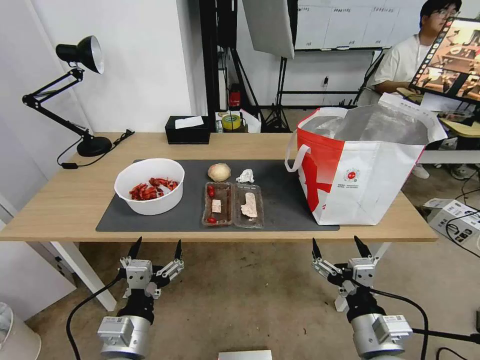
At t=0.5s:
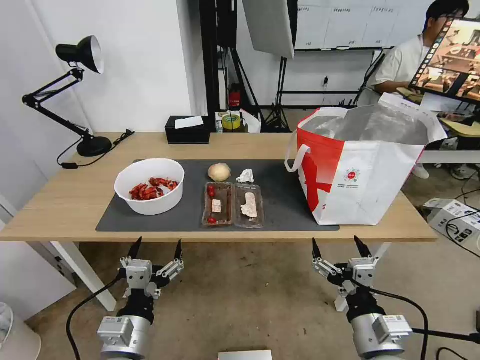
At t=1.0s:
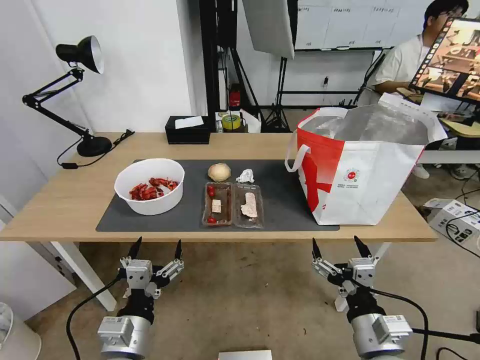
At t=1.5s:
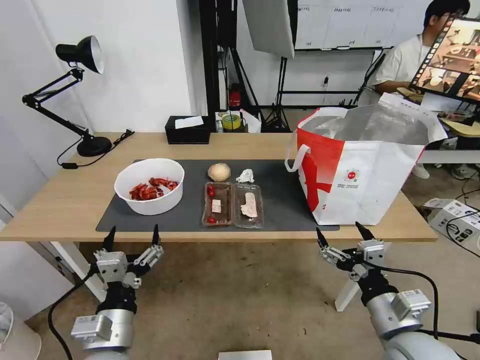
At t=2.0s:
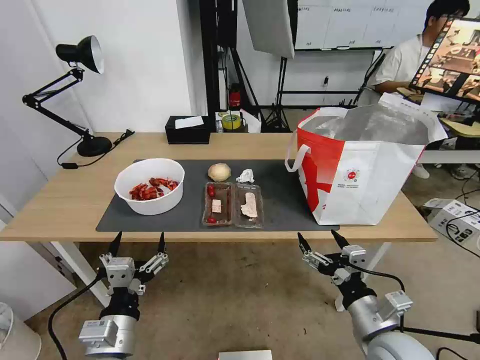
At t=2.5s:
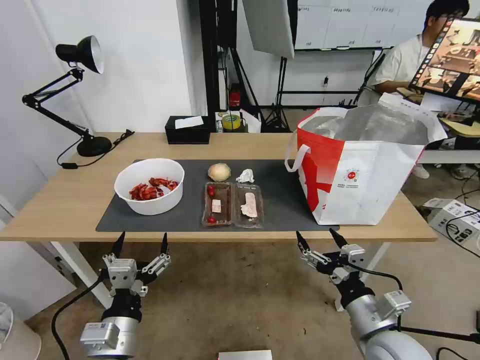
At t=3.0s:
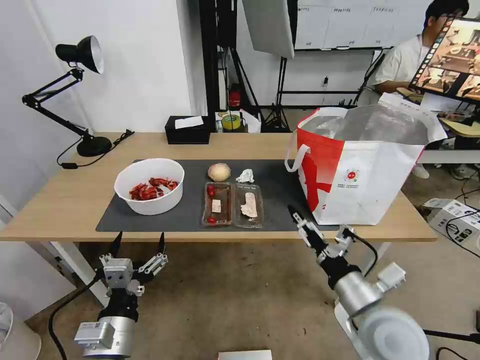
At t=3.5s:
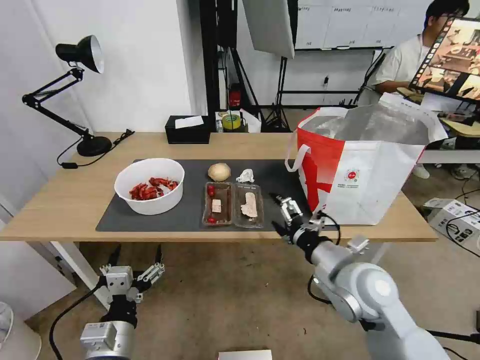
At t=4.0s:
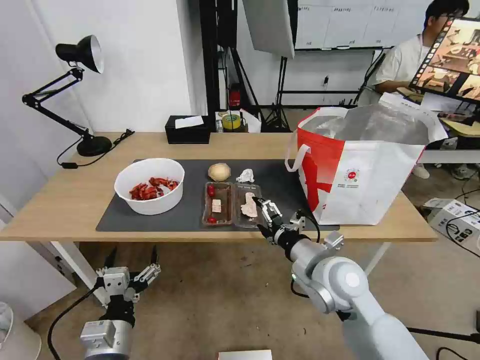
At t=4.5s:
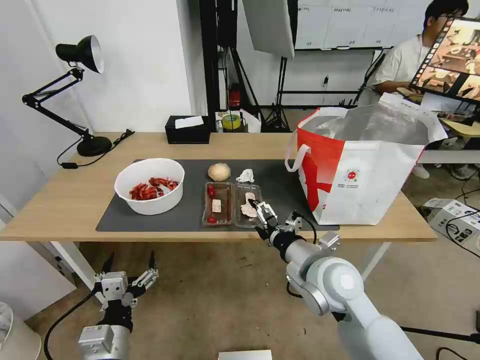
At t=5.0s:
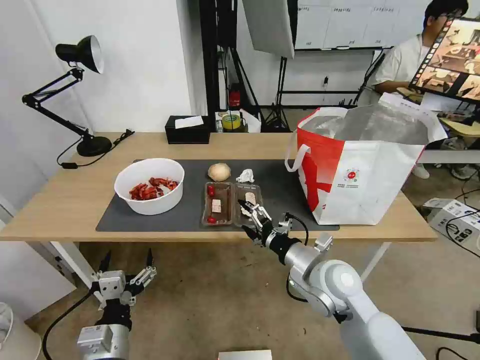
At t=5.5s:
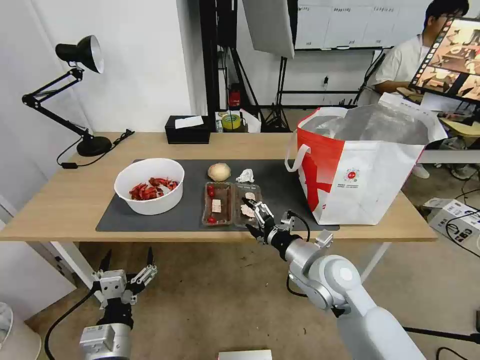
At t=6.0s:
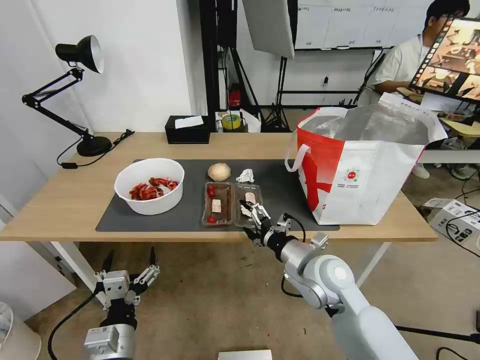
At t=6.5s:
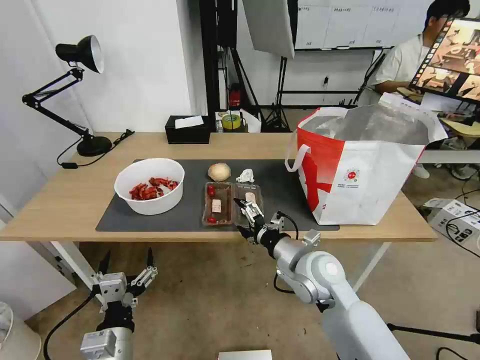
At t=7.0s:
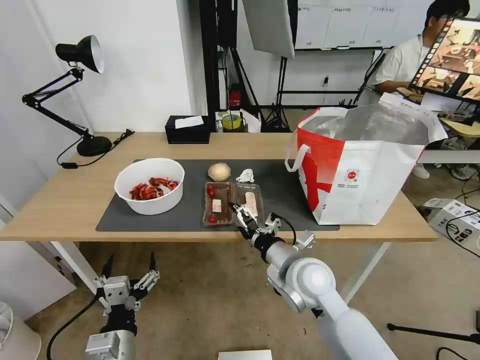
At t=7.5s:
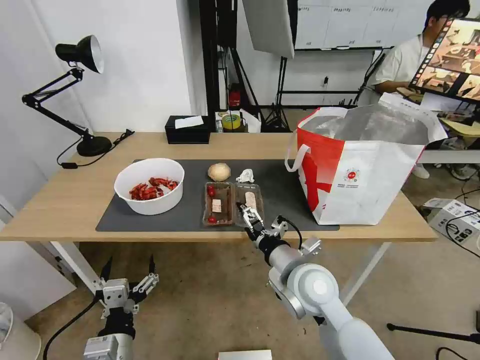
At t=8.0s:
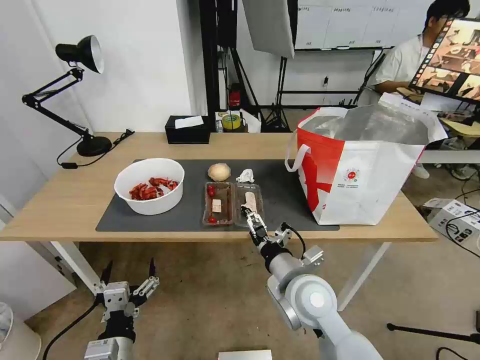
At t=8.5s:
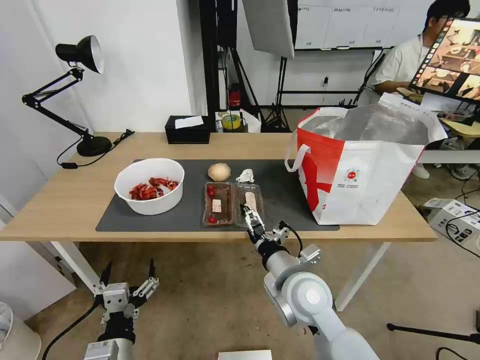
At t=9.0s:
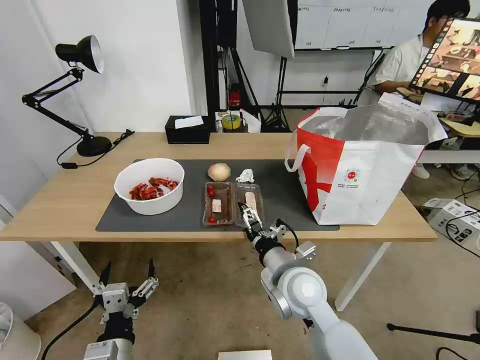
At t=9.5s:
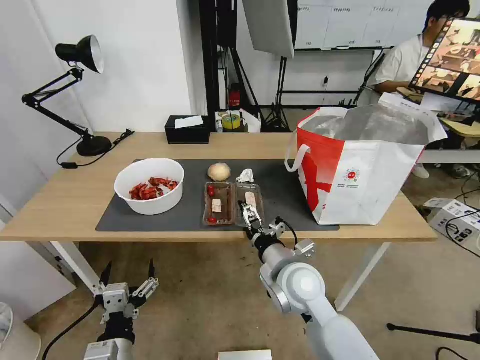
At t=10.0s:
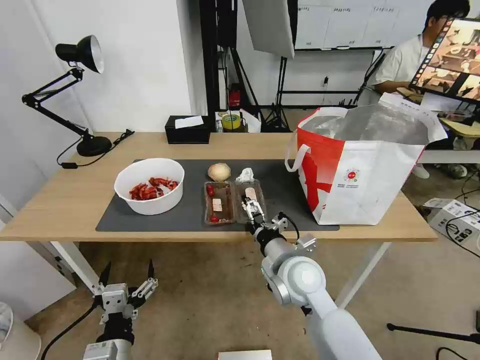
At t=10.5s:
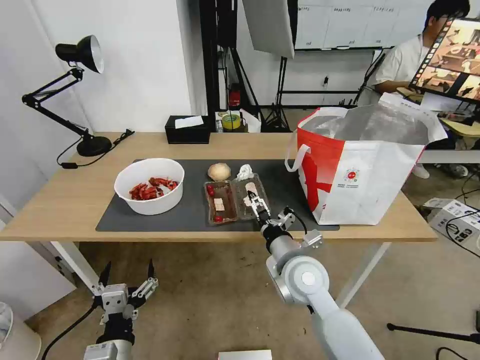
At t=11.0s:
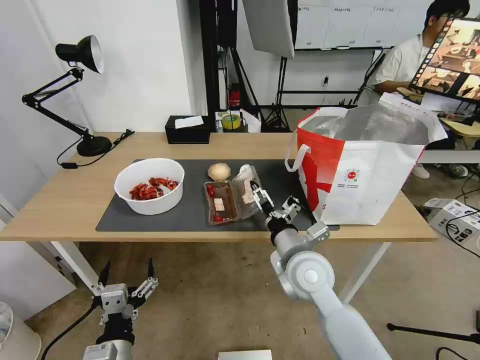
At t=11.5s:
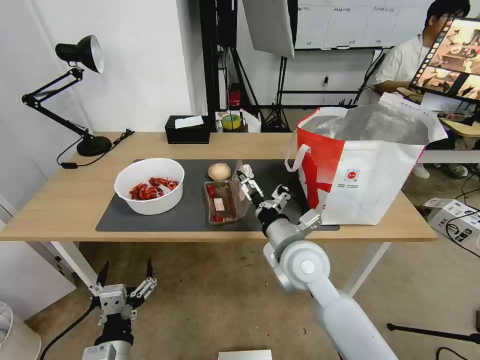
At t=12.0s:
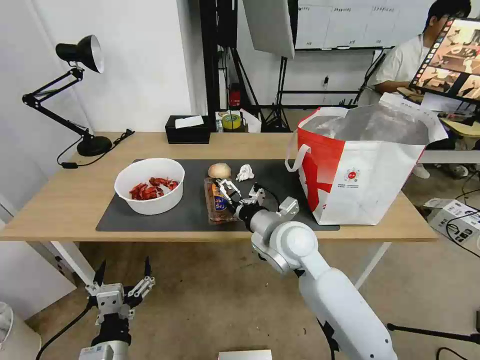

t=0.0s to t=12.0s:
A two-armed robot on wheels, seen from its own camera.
Task of the whole recording: Pick up the trash from the table and place it into the takeout bag.
t=2.0s to t=4.0s: The right gripper is displaced forward, to the left and upward by approximately 15 cm.
t=4.0s to t=6.0s: The grippers stay close to where they were, moving slightly.
t=6.0s to t=8.0s: The right gripper ends up some 5 cm from where it was.
t=8.0s to t=10.0s: The grippers move only a little.
t=10.0s to t=12.0s: The right gripper is displaced upward and forward by some 5 cm.

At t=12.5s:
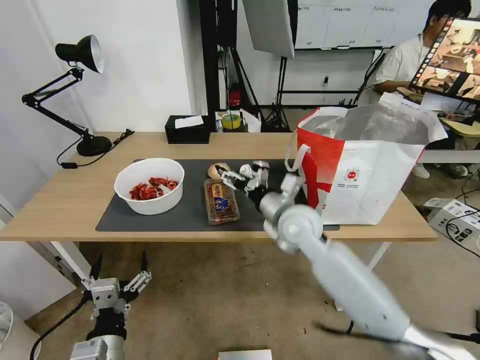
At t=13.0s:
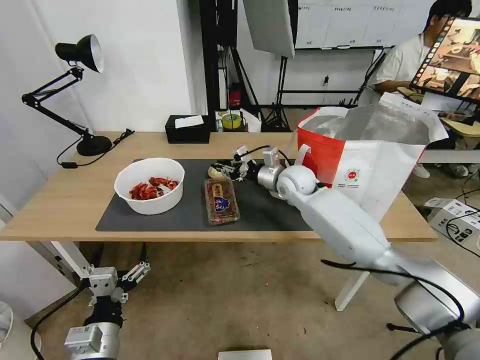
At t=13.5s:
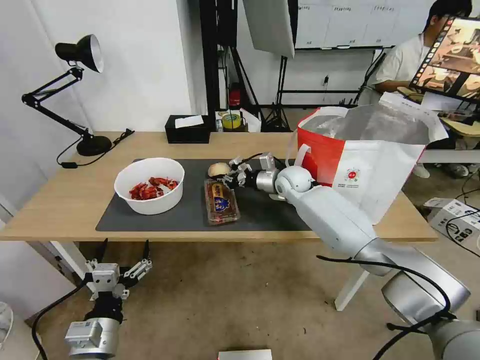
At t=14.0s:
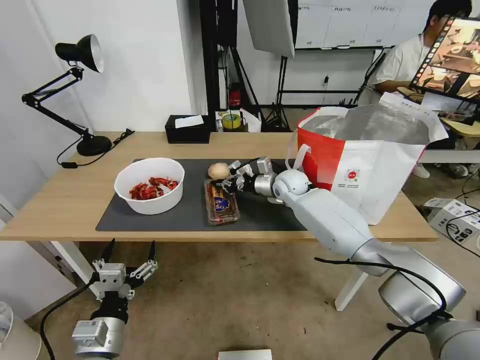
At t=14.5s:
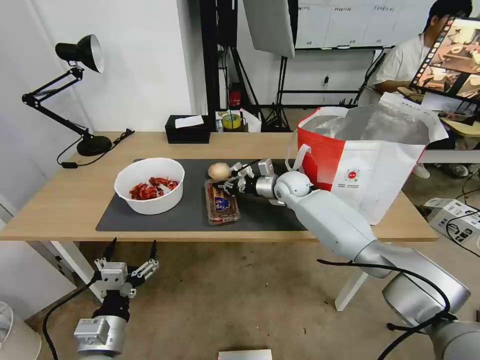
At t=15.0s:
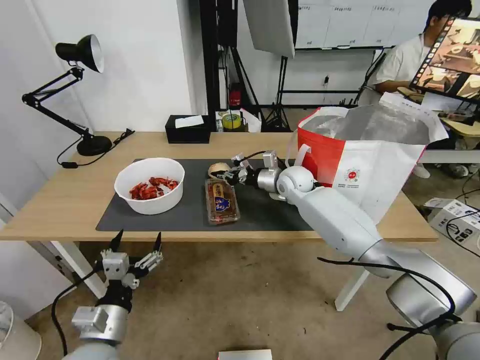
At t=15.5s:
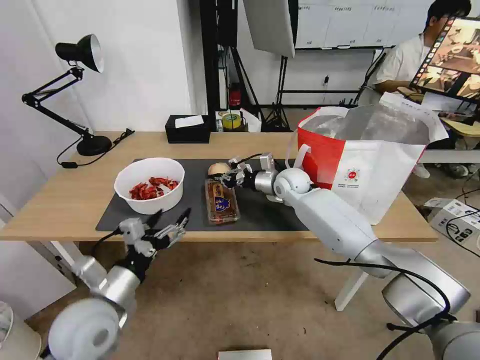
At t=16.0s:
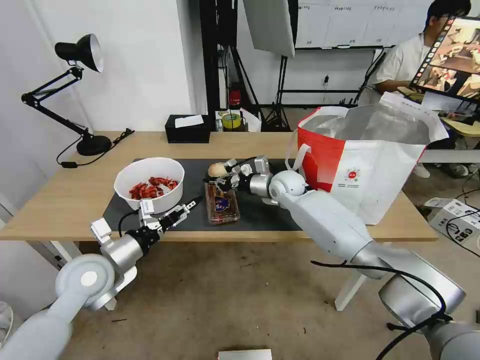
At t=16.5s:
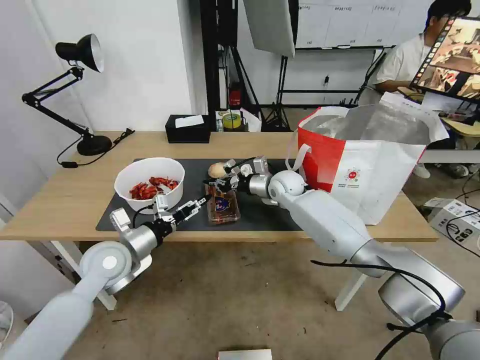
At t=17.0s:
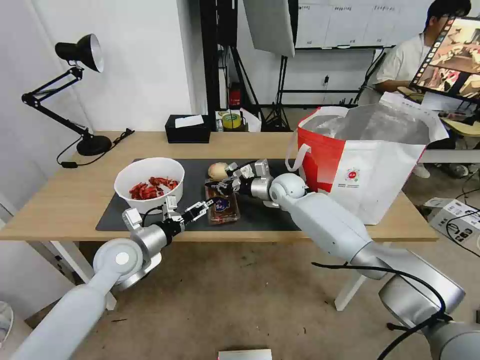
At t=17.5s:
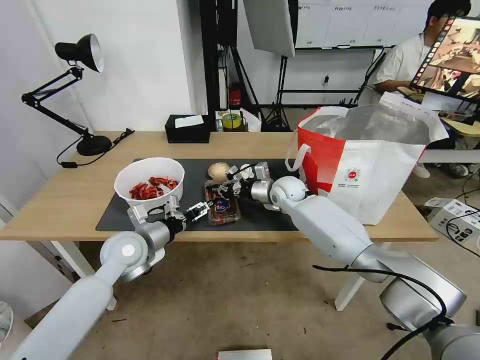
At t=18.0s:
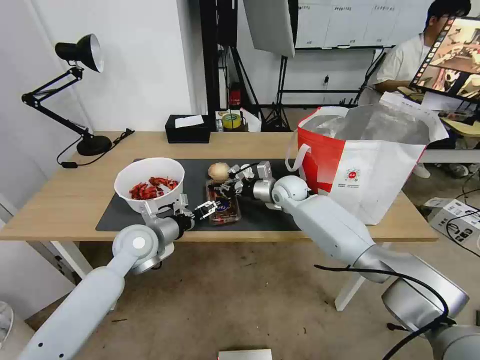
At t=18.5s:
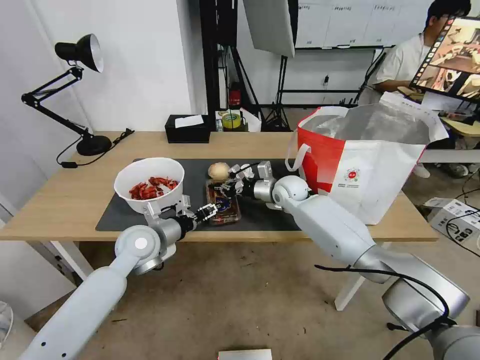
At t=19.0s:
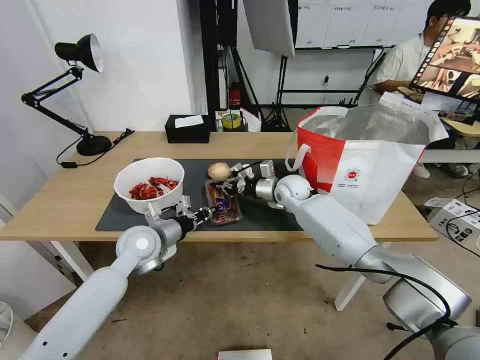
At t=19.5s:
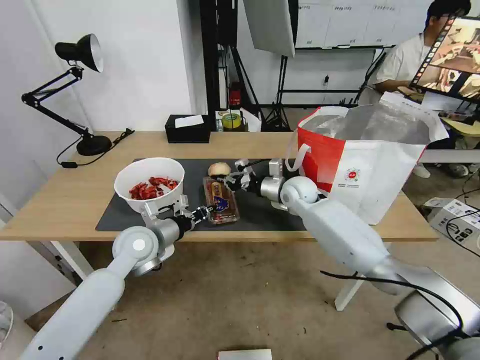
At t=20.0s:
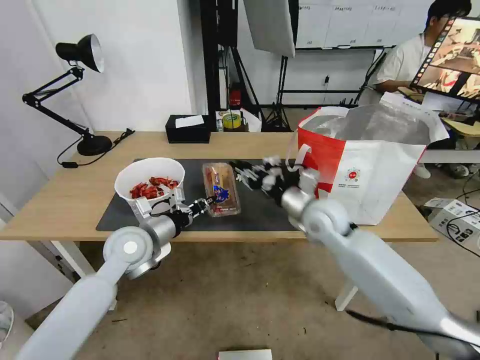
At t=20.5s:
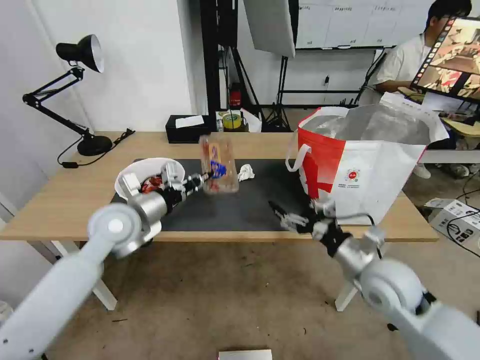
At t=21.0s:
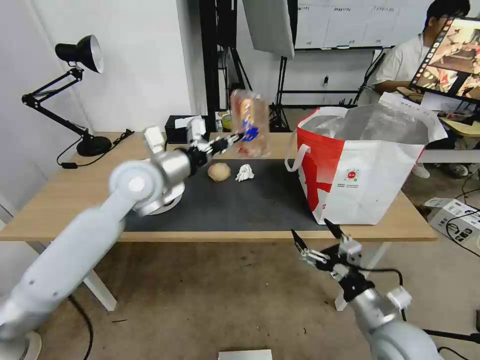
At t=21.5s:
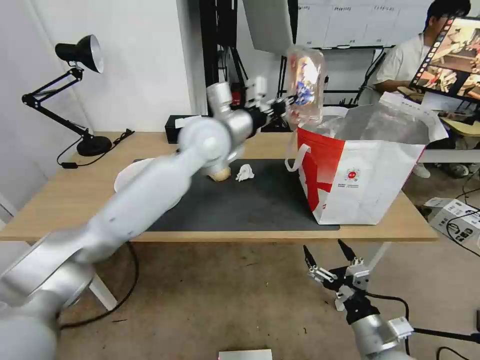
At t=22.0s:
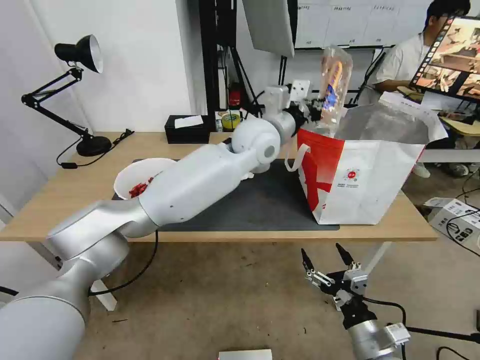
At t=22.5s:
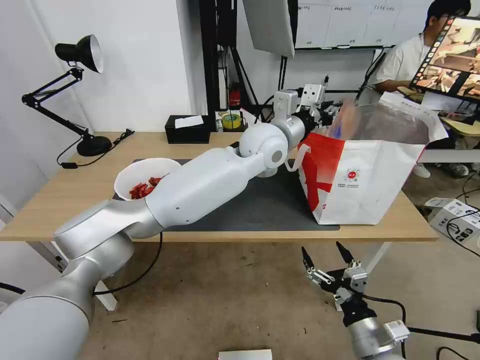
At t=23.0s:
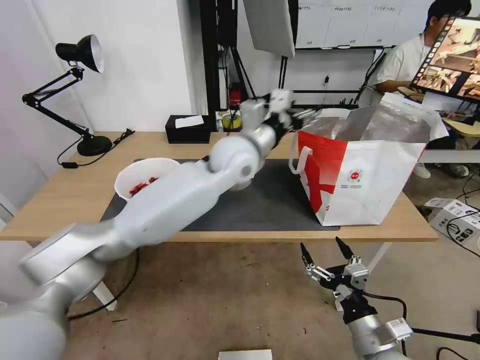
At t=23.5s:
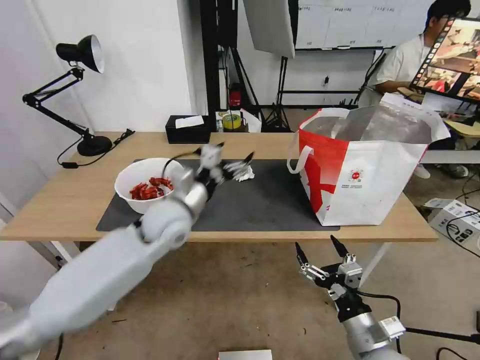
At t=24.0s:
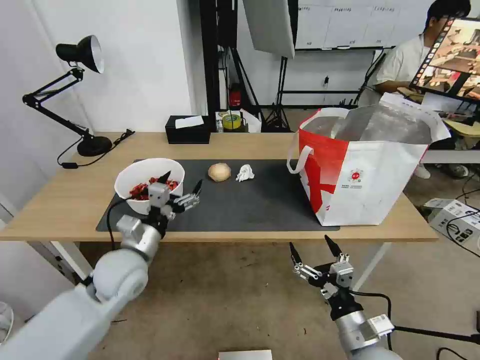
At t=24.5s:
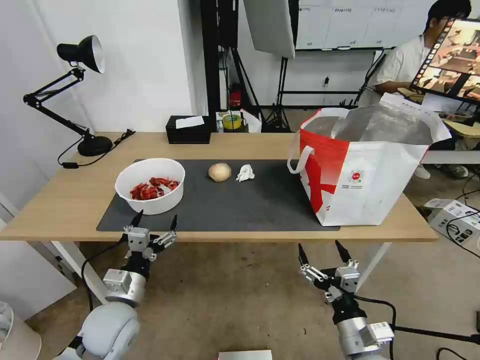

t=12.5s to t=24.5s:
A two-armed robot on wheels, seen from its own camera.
Task of the whole recording: Pick up the trash from the table and place it into the takeout bag.
t=12.5s to t=14.5s: The right gripper heads forward, covering some 15 cm, and closes up.
t=14.5s to t=16.5s: The left gripper moves forward, roughly 20 cm.
t=16.5s to t=18.5s: The left gripper ends up some 5 cm from where it was, and closes.
t=18.5s to t=20.5s: The right gripper is displaced backward and to the right by roughly 30 cm, and opens. Meanwhile the left gripper goes roughly 10 cm upward, and closes up.
t=20.5s to t=22.5s: The left gripper heads to the right and forward, covering some 30 cm. Meanwhile the right gripper shifts roughly 20 cm backward and downward.
t=22.5s to t=24.5s: The left gripper shifts roughly 50 cm to the left, backward and downward, and opens.

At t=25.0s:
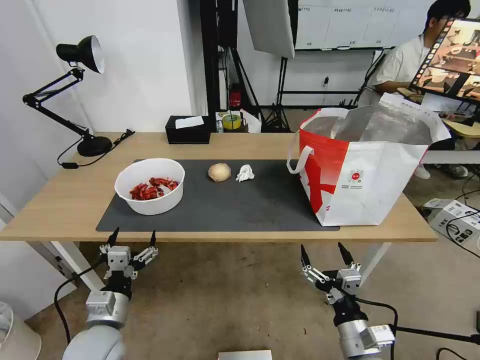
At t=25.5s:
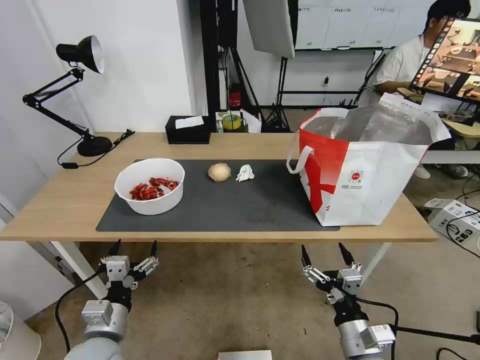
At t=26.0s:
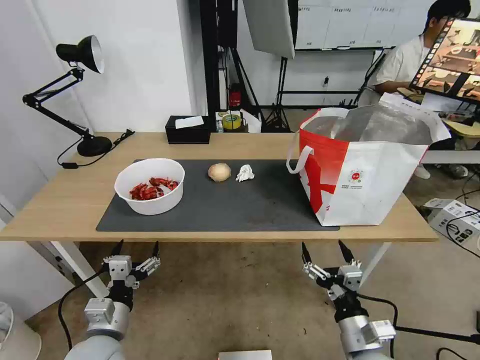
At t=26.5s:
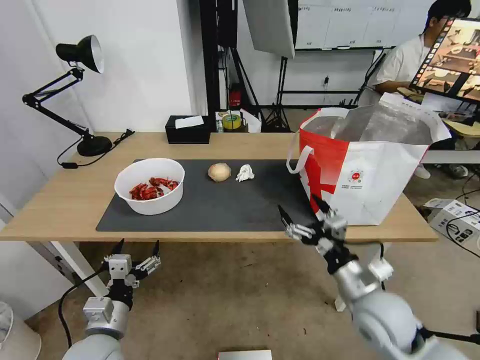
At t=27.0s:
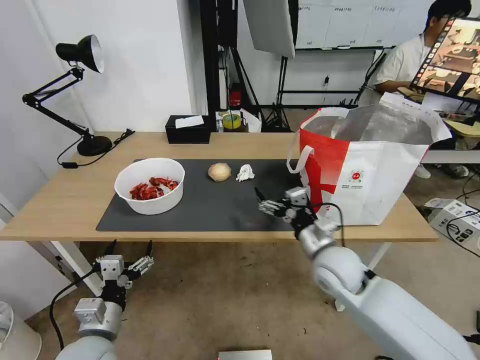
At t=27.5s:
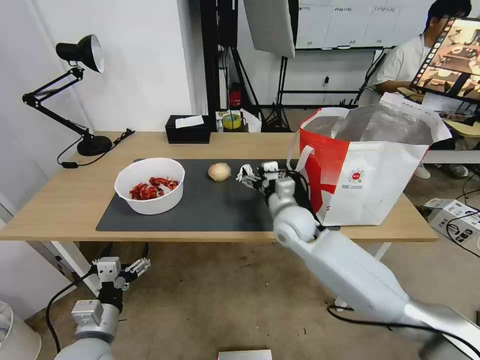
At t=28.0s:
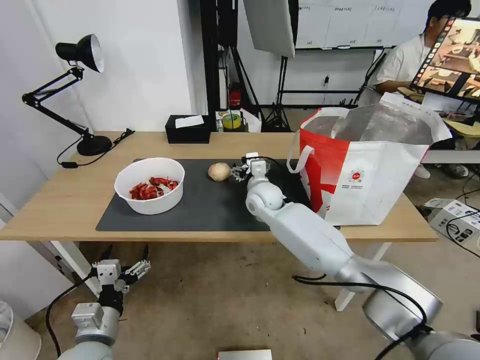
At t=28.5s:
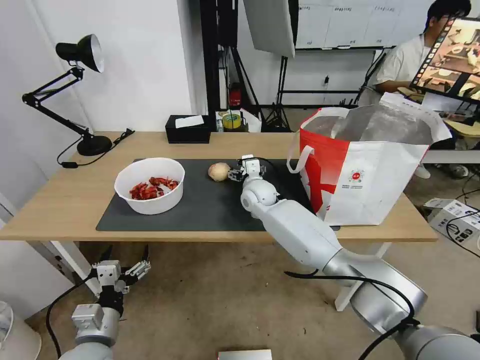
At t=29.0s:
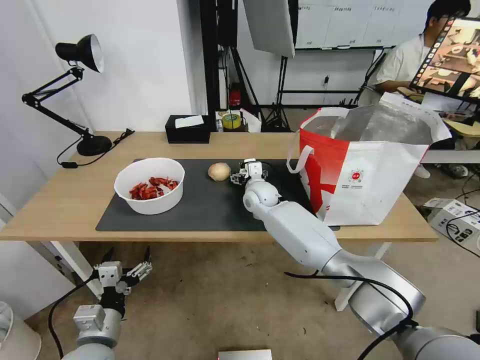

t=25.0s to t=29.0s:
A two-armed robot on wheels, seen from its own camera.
Task of the whole recording: Pick up the trash from the table and place it into the takeout bag.
t=25.0s to t=27.0s: The right gripper shifts some 20 cm forward.
t=27.0s to t=29.0s: The right gripper travels forward and to the left by some 25 cm.
